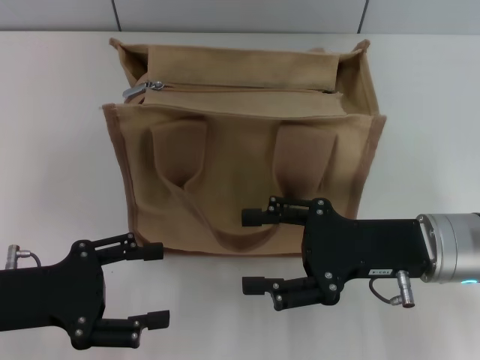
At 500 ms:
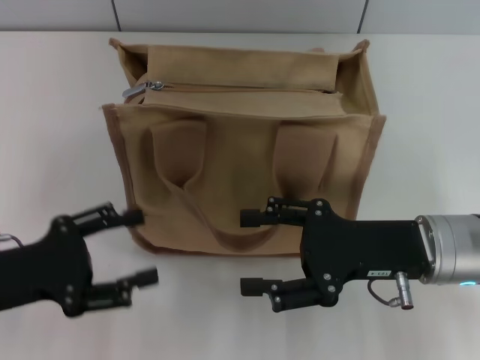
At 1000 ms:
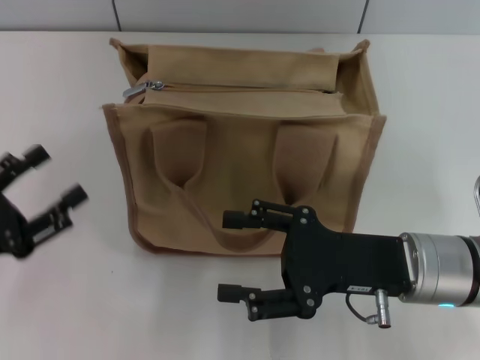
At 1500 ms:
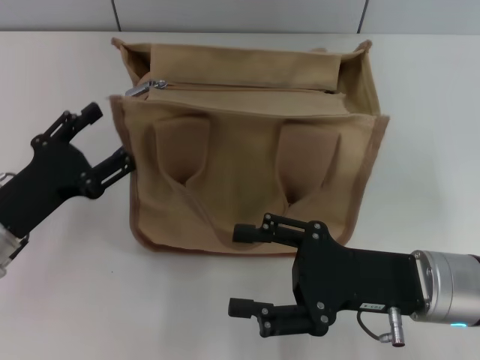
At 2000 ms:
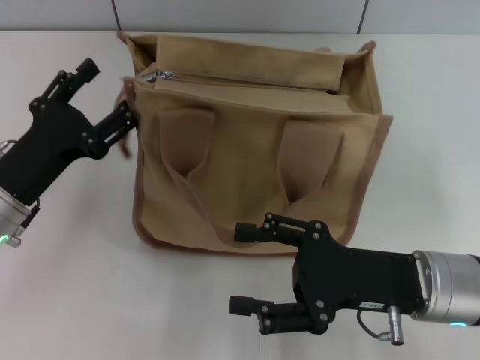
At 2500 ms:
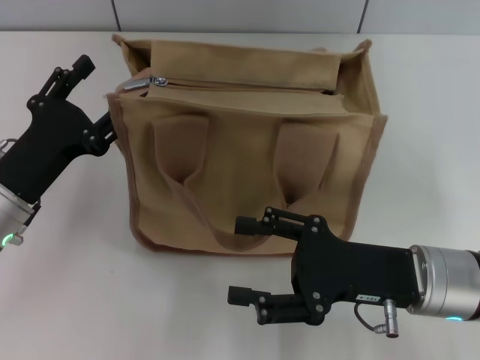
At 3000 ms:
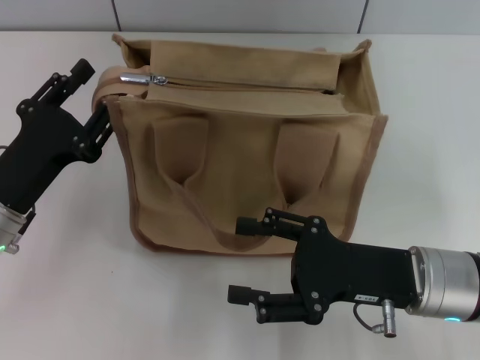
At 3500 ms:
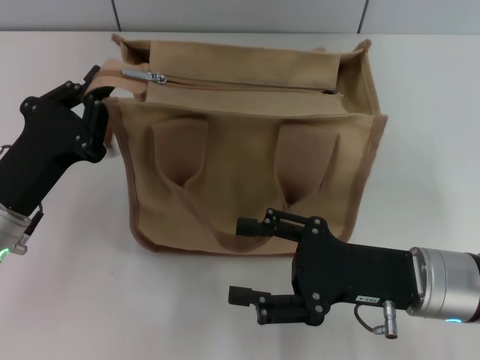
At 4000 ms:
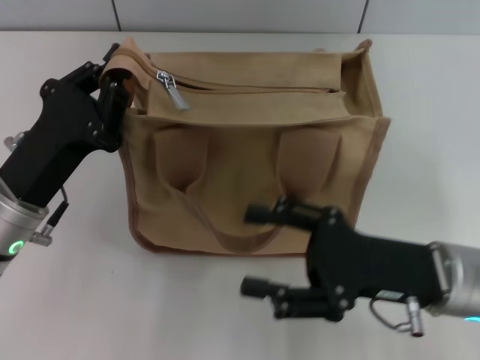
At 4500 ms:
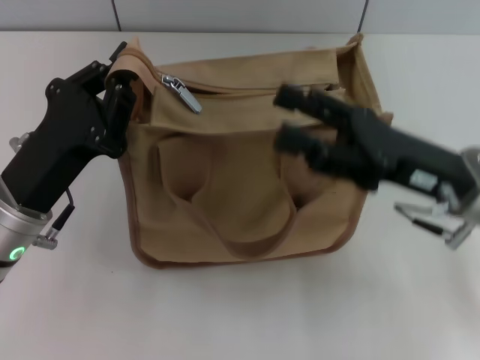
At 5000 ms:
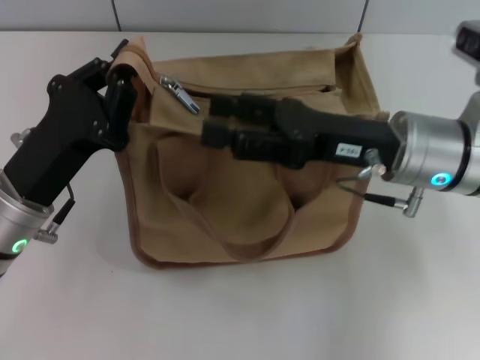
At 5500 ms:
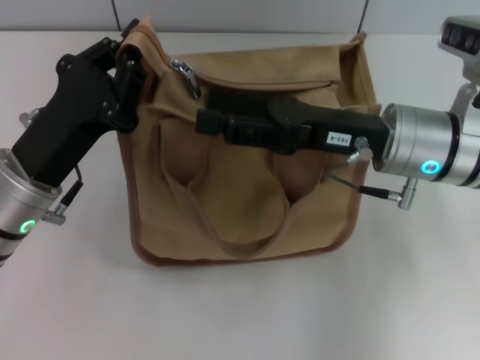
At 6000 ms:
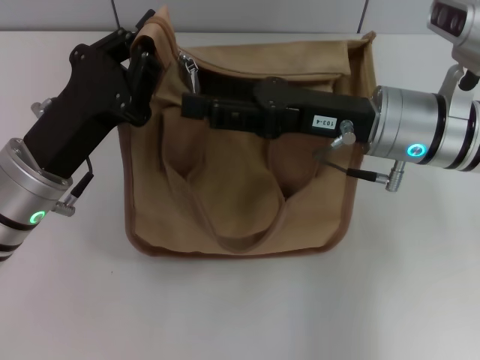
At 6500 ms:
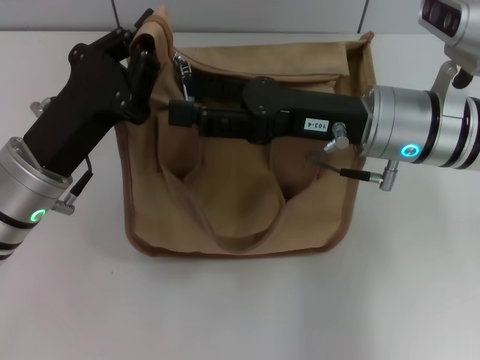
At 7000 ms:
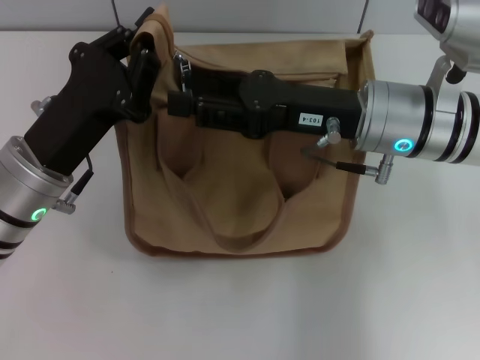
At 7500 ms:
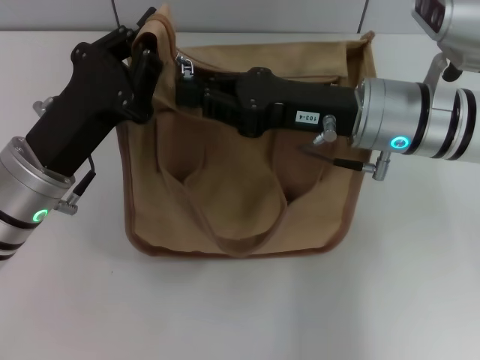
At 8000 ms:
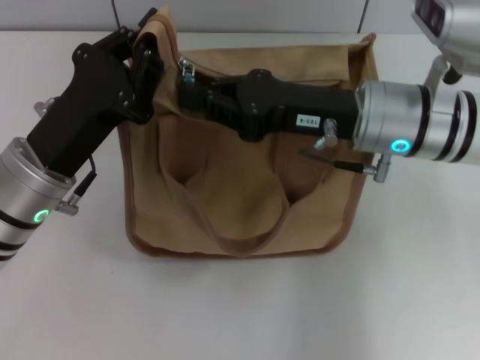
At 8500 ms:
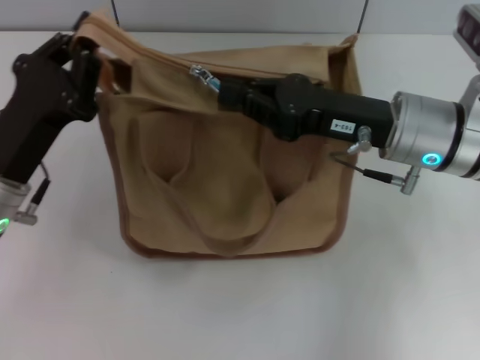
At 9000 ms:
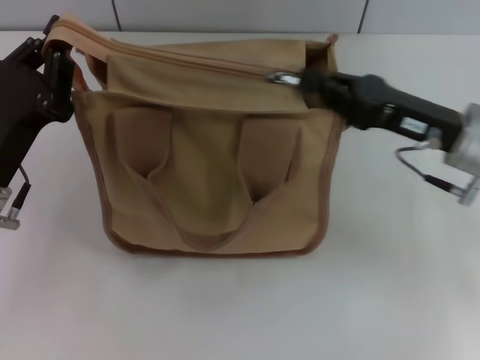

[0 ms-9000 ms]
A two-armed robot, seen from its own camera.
Step, 0 ms to 9000 ms: Pull up the zipper with your right hand.
0 ms to 2000 ms: The left gripper heads forward, covering roughly 5 cm.
2000 ms to 4500 ms: The left gripper closes its fingers; the right gripper shifts approximately 5 cm upward.
4500 ms to 7000 ms: The right gripper shifts roughly 10 cm to the left and forward.
7000 ms to 9000 ms: The right gripper goes approximately 10 cm to the right, and closes. The left gripper changes place by approximately 5 cm.

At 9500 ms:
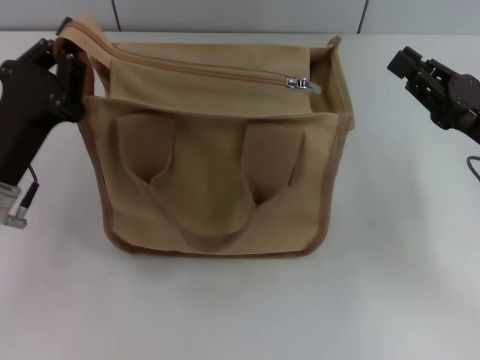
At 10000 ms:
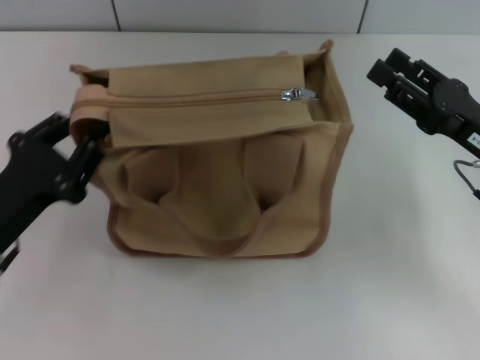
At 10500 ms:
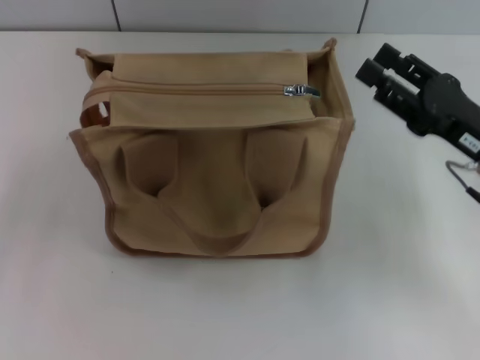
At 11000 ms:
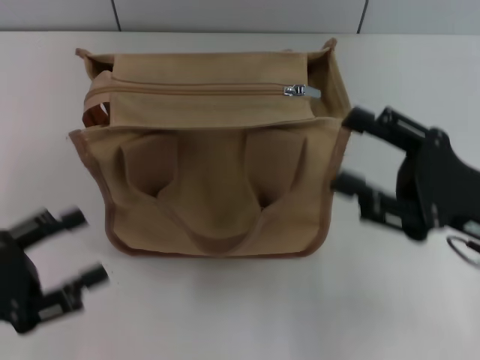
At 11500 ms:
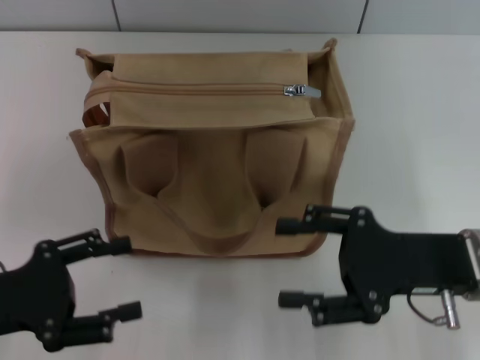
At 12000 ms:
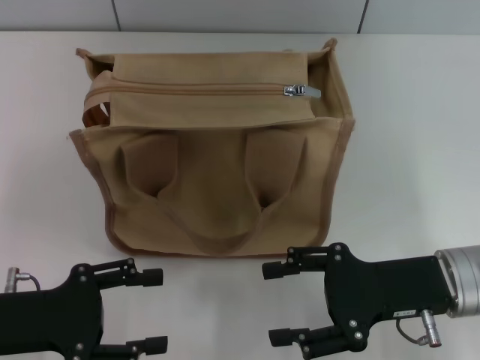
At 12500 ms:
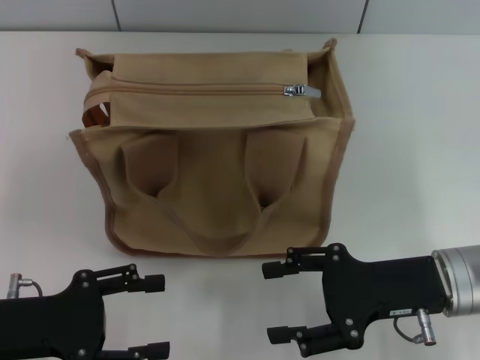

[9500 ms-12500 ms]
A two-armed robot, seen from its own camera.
Step, 9500 ms to 10000 ms: Grab the zipper with your left hand.
9500 ms to 11000 ms: The right gripper ends up some 5 cm from where it was, and opens up. The left gripper shifts about 10 cm backward and to the left, and opens.
11000 ms to 12500 ms: The right gripper changes place by roughly 5 cm.

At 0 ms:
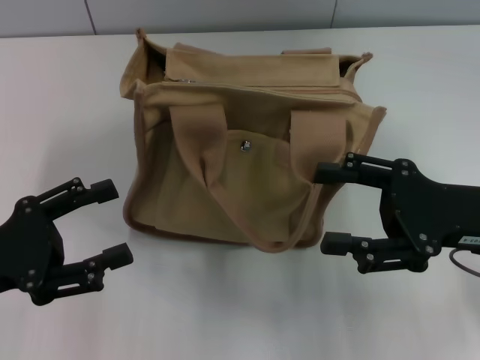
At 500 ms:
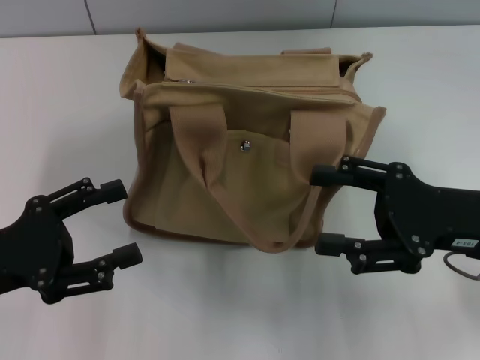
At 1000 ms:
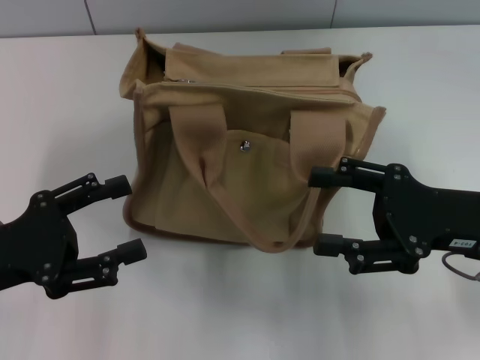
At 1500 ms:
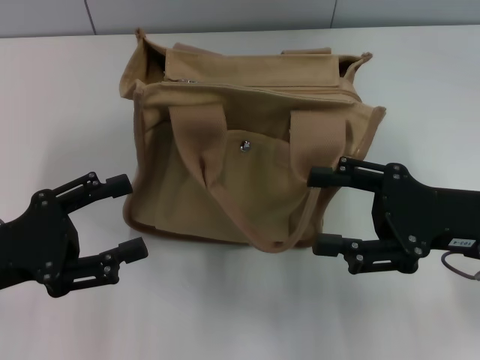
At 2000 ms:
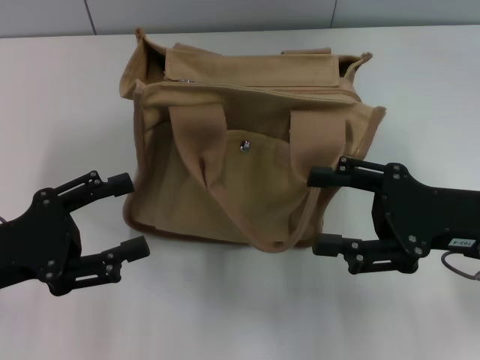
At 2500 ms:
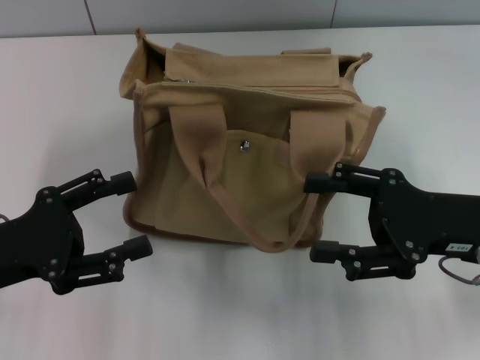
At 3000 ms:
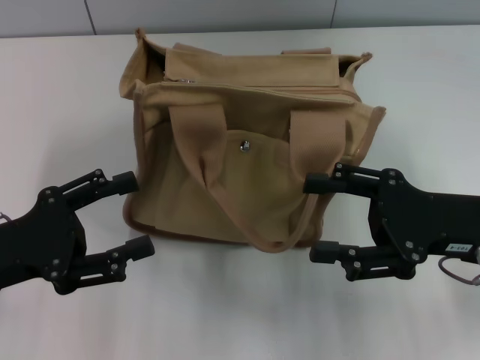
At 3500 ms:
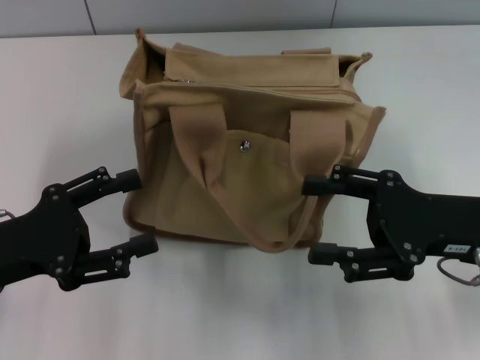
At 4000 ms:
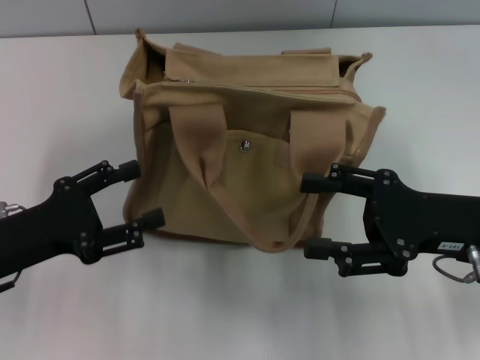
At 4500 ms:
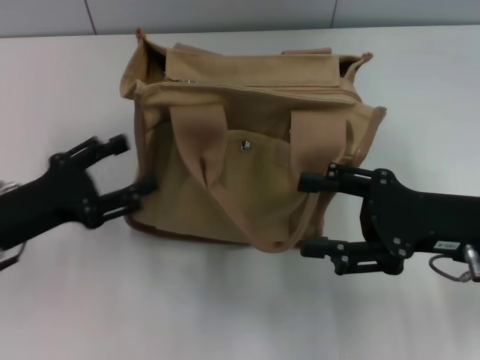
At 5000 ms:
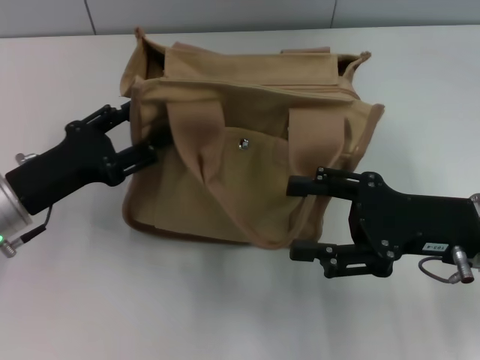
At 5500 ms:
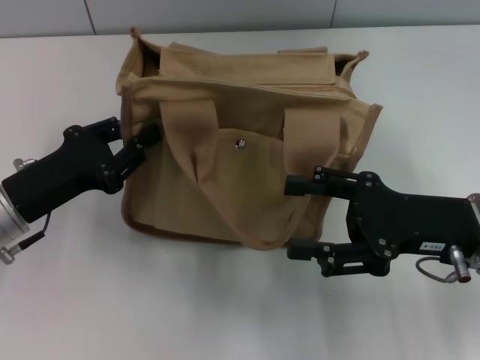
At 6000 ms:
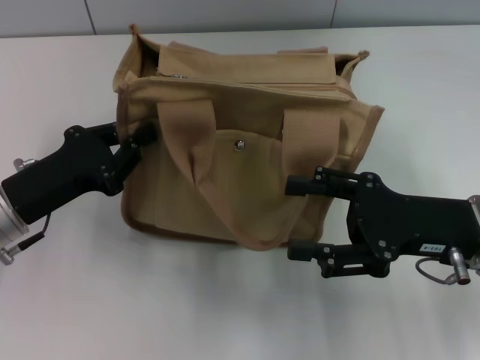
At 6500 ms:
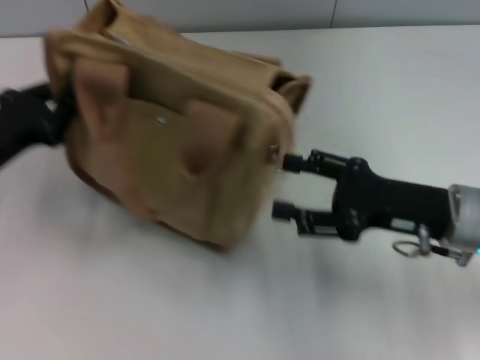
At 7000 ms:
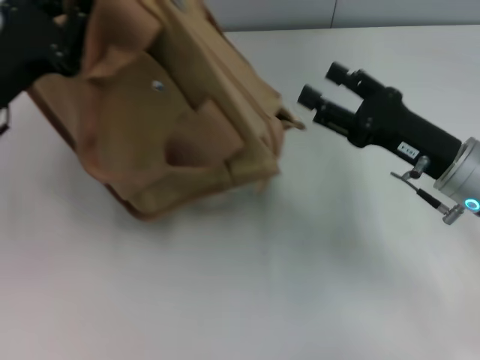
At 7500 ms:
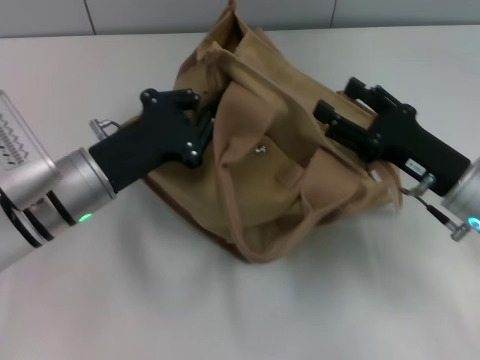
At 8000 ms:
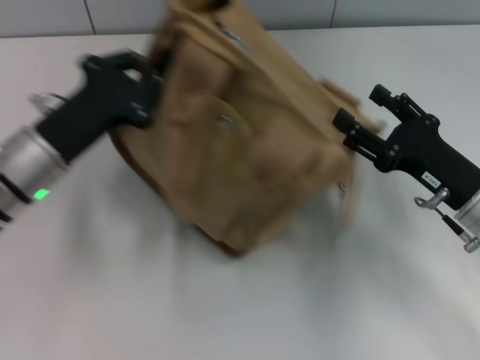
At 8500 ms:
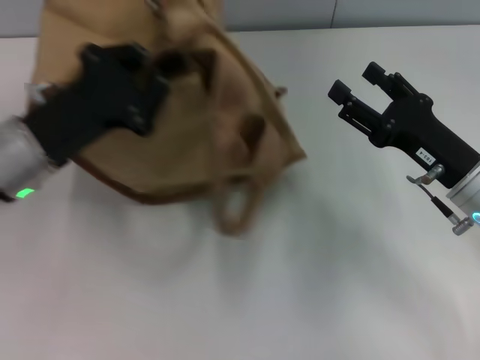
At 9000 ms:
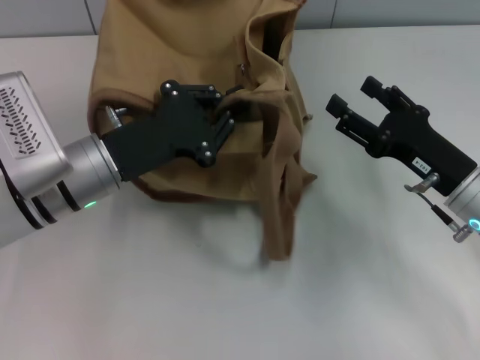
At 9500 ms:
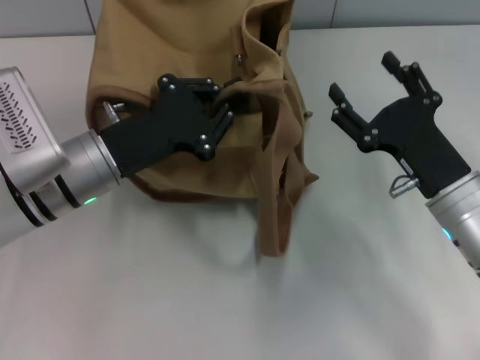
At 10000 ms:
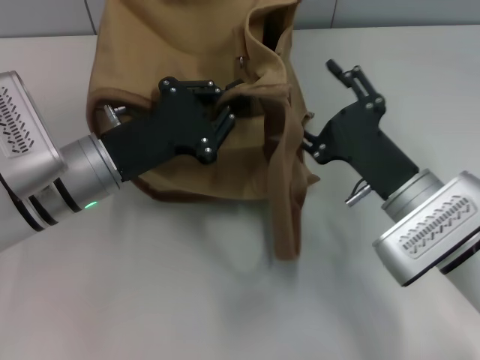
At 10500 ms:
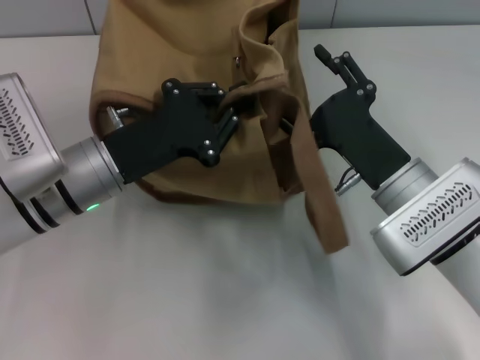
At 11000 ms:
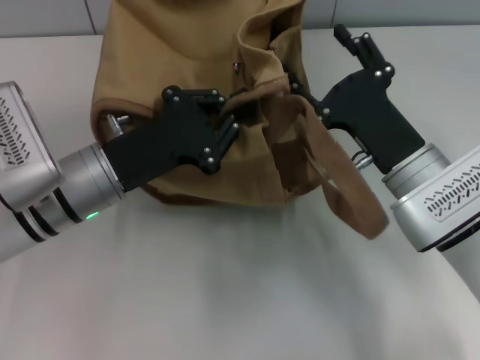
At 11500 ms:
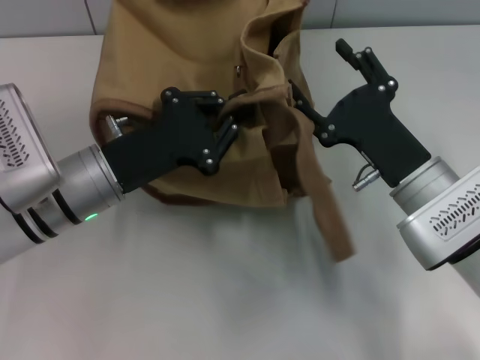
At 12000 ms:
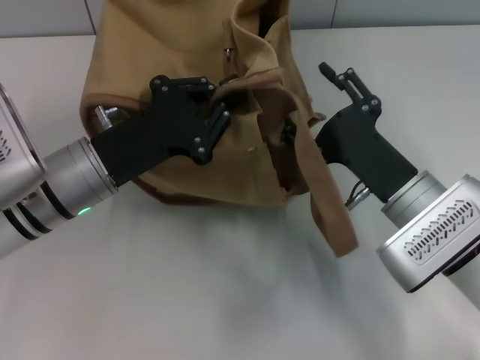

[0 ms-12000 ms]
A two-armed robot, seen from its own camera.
0 ms to 2000 ms: Neither gripper changes place.
2000 ms to 4000 ms: The grippers stay close to where they were, moving slightly.
4000 ms to 6000 ms: The left gripper closes its fingers.
6000 ms to 8000 ms: The right gripper changes place by approximately 5 cm; the left gripper swings left and right, approximately 10 cm each way, with 2 reversals.
8000 ms to 10000 ms: The left gripper is displaced to the right by some 5 cm. Meanwhile the right gripper goes about 10 cm to the left.
10000 ms to 12000 ms: The grippers stay close to where they were, moving slightly.

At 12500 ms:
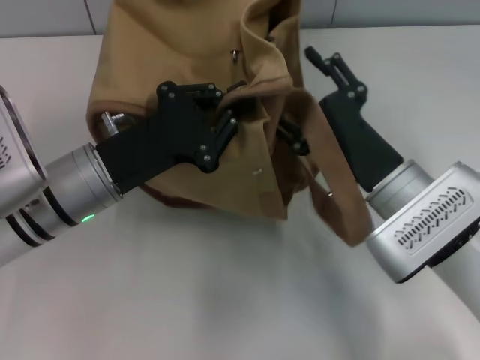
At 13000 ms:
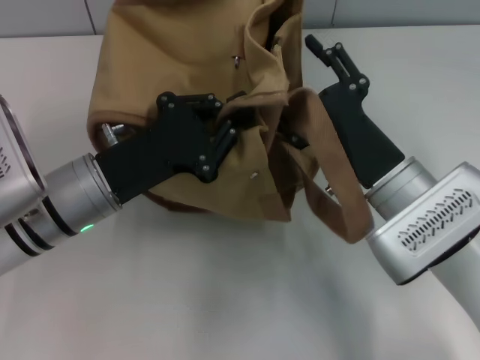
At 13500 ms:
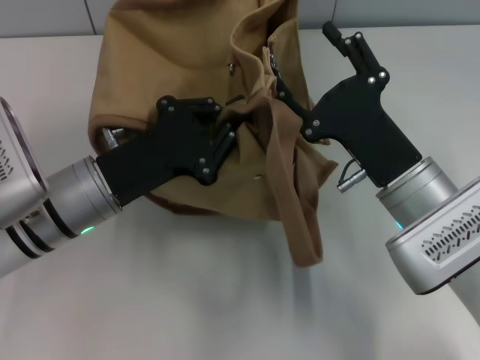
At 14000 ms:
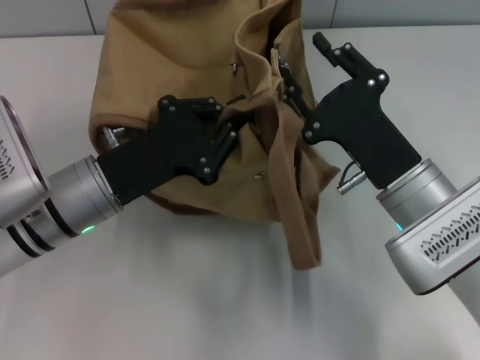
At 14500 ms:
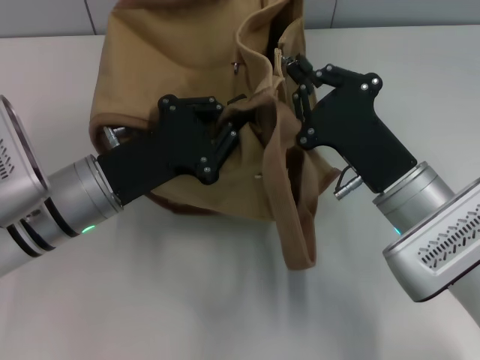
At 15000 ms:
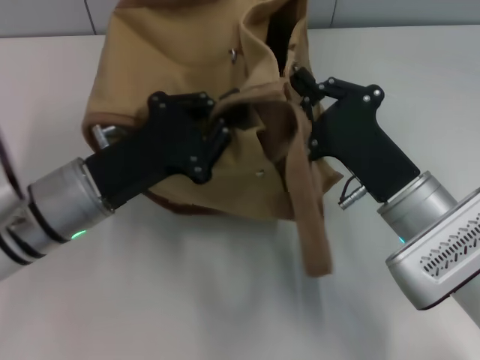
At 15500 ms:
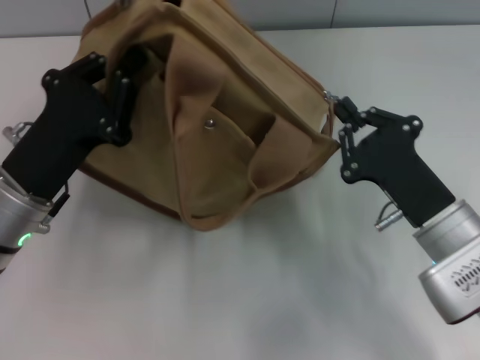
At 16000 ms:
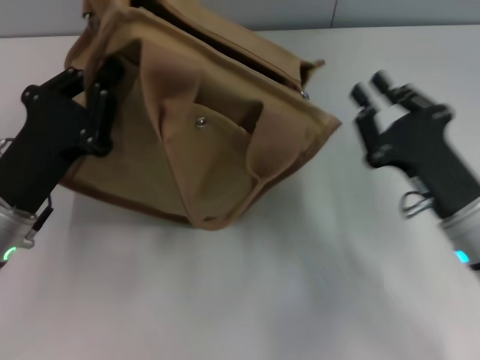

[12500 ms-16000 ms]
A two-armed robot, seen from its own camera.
Step, 12500 ms to 16000 ms: Pull open the zipper with your right hand.
12500 ms to 14500 ms: The right gripper closes.
14500 ms to 16000 ms: The right gripper shifts about 5 cm to the right. The left gripper heads to the left, covering about 5 cm.
